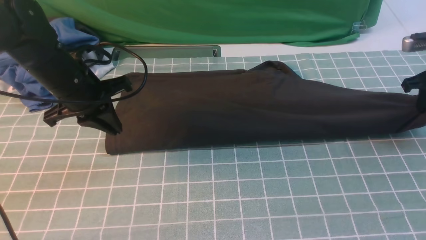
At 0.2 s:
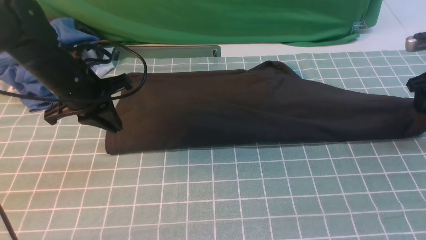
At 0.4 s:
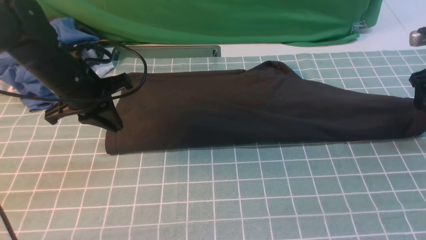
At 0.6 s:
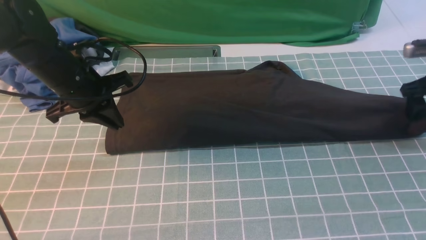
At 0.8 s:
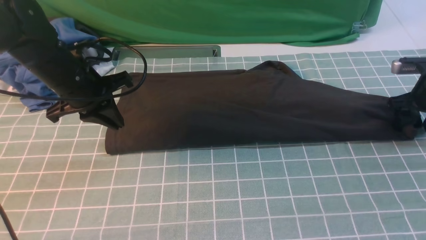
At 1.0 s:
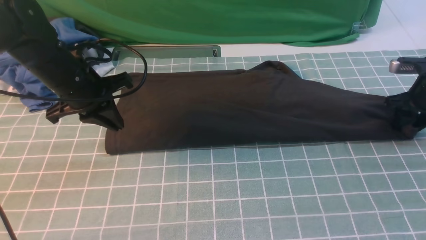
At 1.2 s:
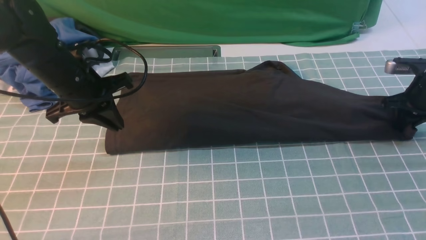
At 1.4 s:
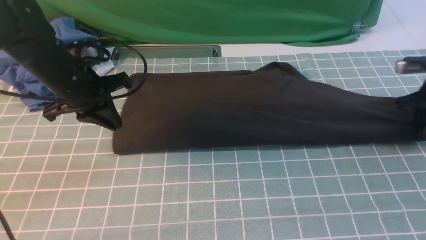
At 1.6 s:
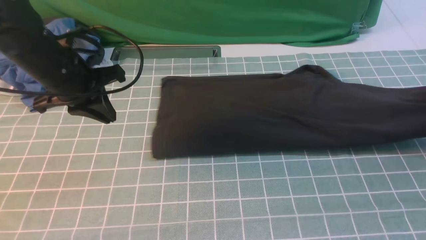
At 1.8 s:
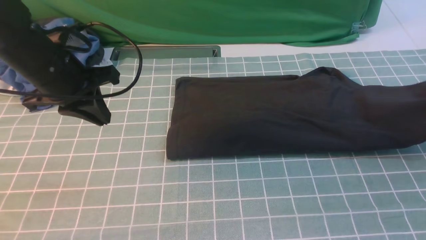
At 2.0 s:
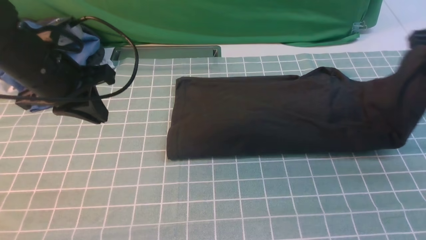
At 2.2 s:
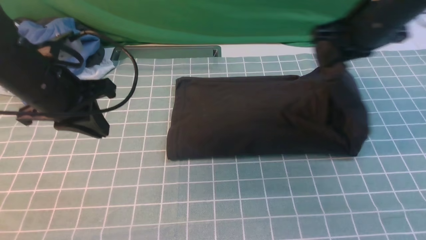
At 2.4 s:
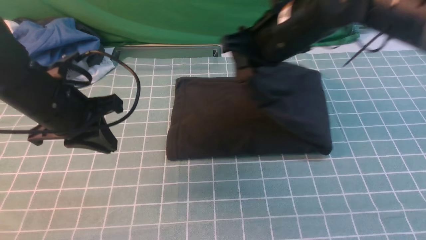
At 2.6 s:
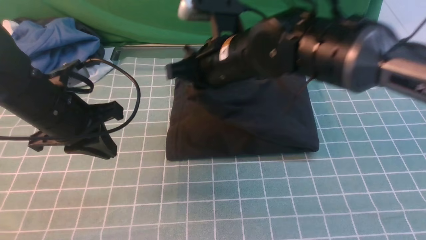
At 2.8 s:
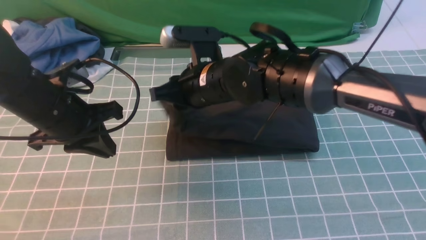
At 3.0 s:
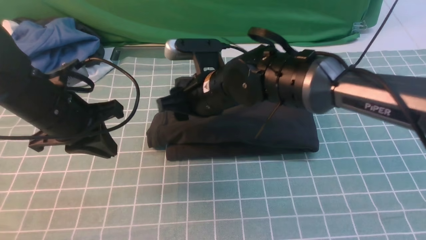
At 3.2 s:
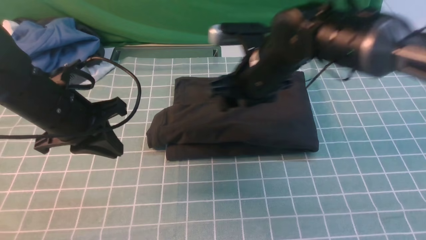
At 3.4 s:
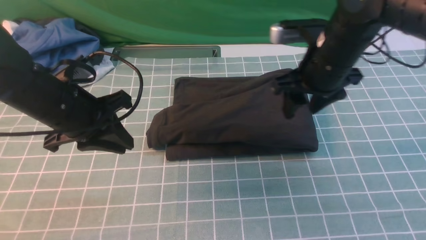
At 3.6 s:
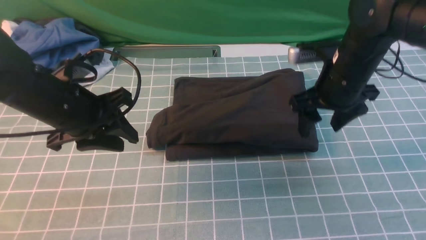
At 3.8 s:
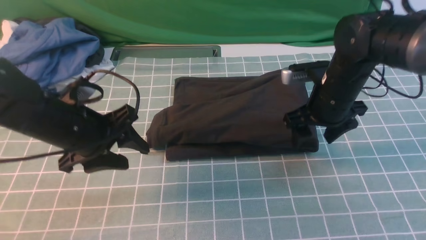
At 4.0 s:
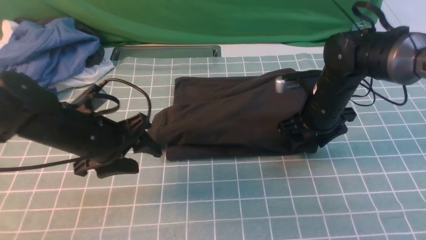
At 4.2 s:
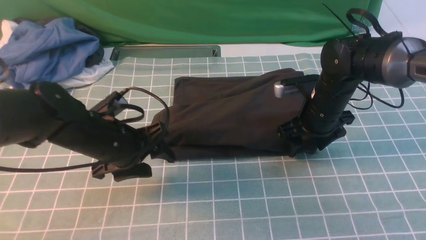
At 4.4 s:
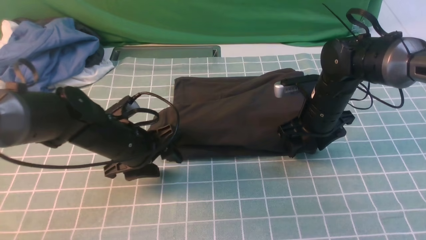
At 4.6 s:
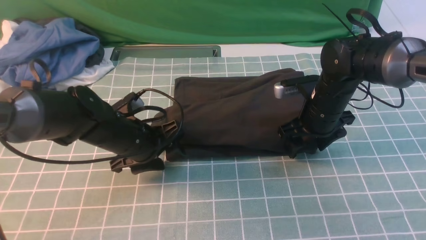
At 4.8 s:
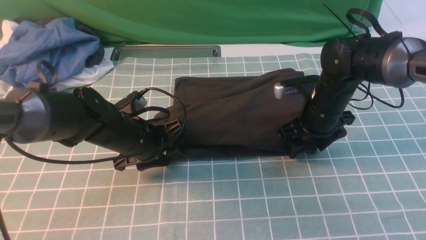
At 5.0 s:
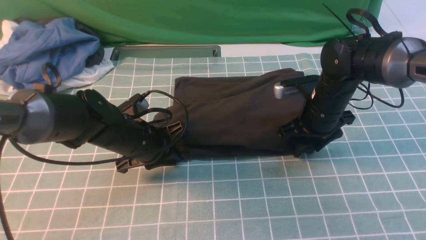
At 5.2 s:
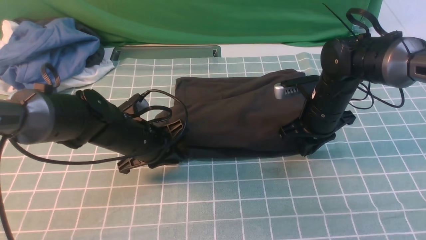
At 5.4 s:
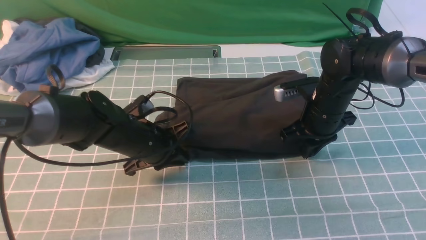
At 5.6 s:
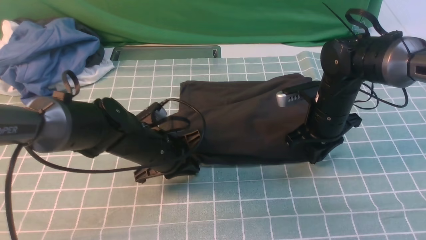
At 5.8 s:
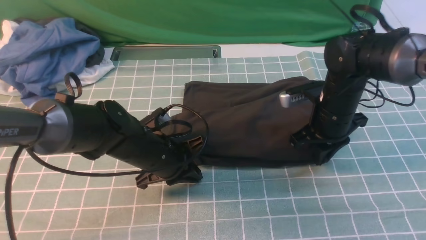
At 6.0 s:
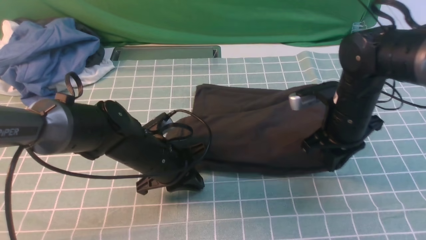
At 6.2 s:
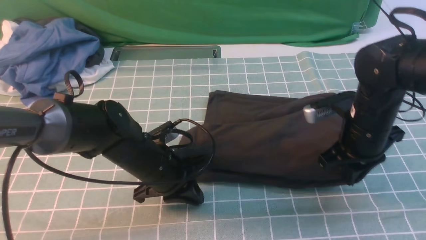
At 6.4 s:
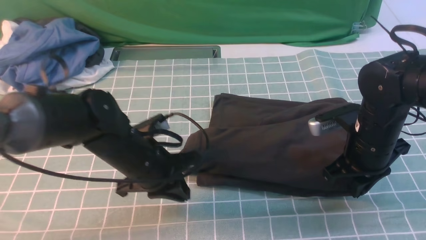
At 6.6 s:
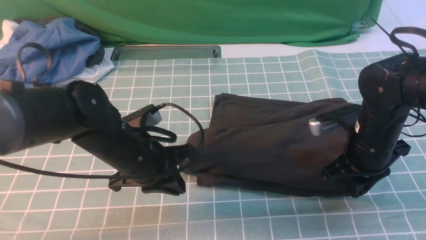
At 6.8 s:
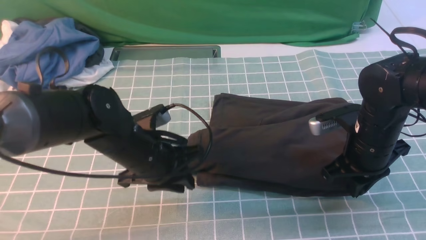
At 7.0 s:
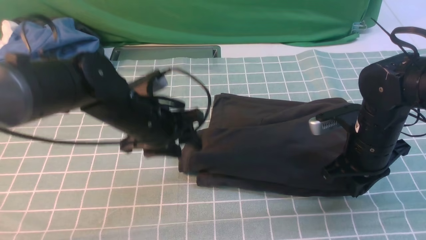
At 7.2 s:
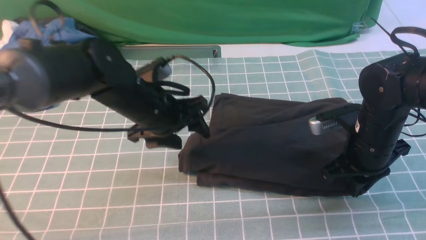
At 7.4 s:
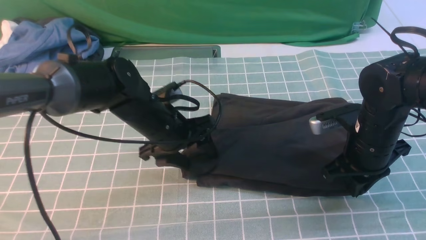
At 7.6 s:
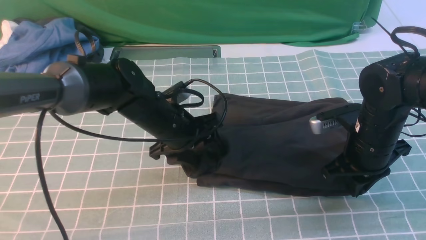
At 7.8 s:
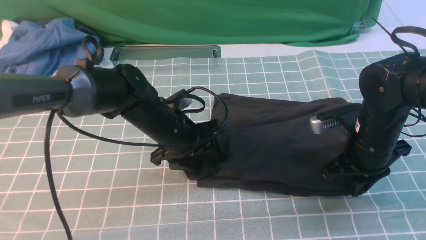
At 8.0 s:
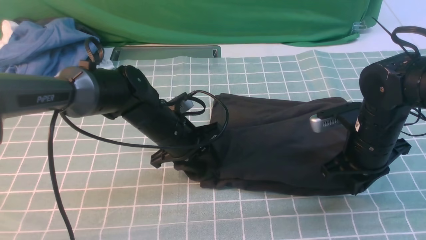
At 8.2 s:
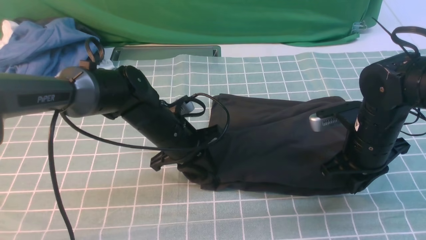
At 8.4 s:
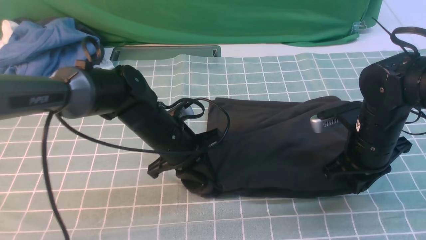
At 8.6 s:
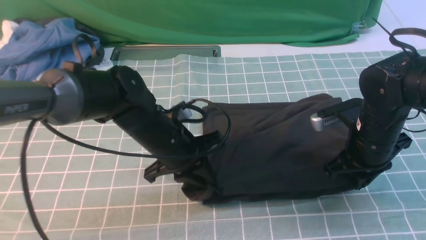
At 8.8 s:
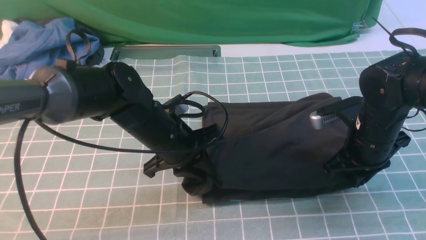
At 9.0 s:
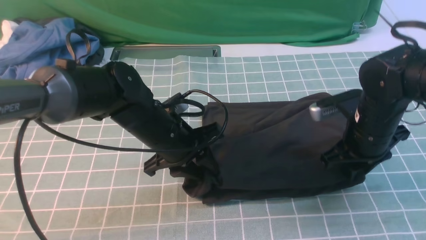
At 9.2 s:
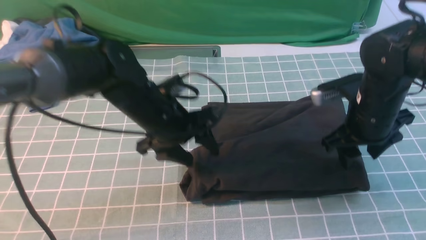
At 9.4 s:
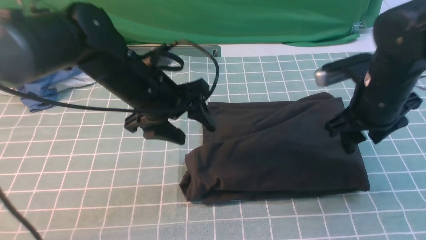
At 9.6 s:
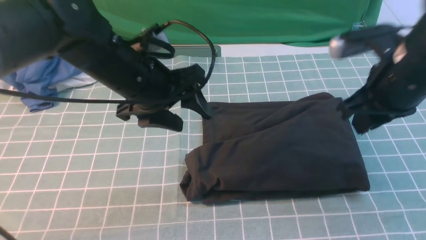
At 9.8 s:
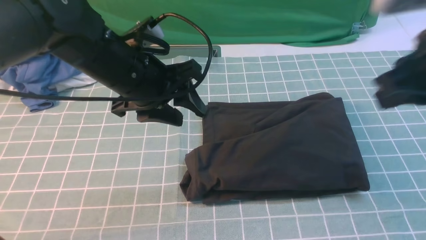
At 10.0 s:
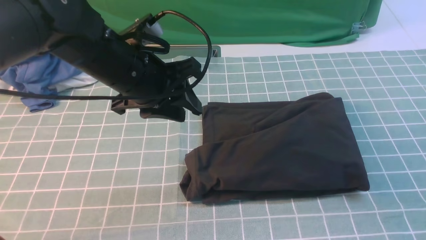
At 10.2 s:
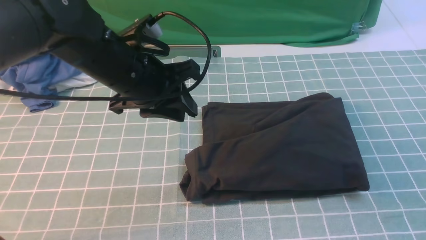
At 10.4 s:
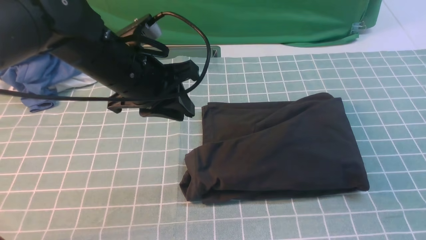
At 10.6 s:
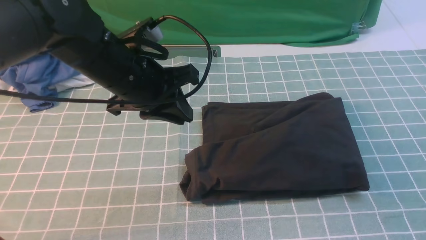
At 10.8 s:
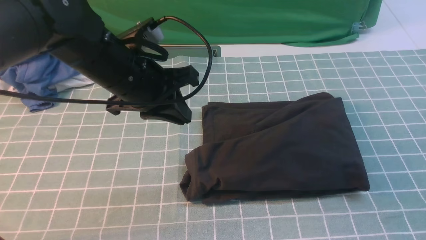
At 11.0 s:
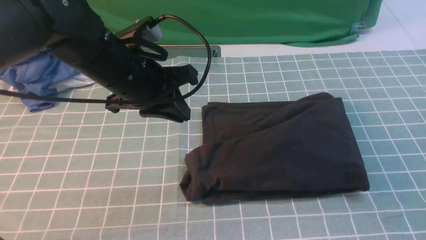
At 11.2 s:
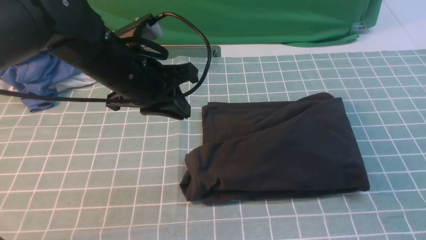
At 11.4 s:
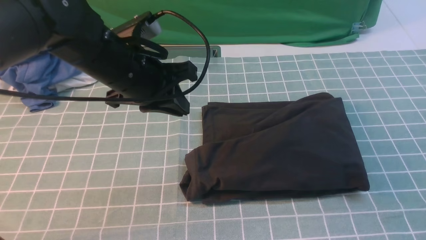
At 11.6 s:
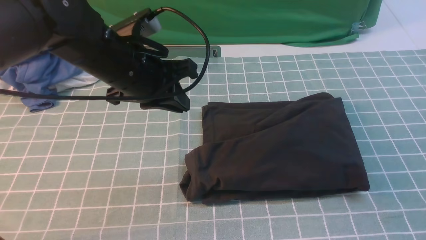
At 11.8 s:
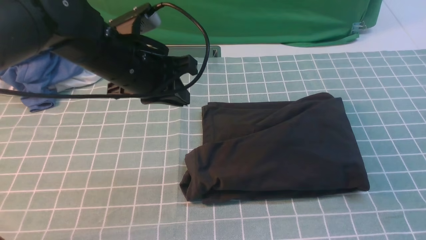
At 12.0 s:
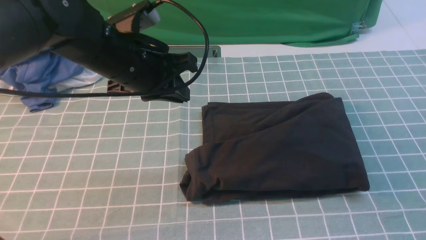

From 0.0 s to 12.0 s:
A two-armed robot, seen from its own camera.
Step, from 1.4 s to 3.4 s: use the right arm to drag the right edge of the fabric to the left and folds it over the left edge.
From 0.0 s to 1.6 s: The right gripper travels downward and back again, some 5 cm each way, and closes up.
From 1.6 s to 3.0 s: The right gripper is displaced to the left by about 40 cm, and opens. The left gripper is displaced backward by approximately 5 cm.
From 3.0 s to 4.4 s: The left gripper travels downward and to the right by approximately 10 cm, and opens up; the right gripper travels to the right and downward by some 15 cm.
From 4.4 s to 6.0 s: The left gripper is displaced to the right by about 5 cm, and closes up; the right gripper shifts by approximately 5 cm, and closes its fingers.
From 6.0 s to 7.6 s: The left gripper changes place by some 5 cm, and opens up.
From 7.6 s to 9.0 s: The left gripper closes up.
From 9.0 s to 10.4 s: The right gripper travels backward and upward by some 35 cm, and closes its fingers. The left gripper heads upward, covering roughly 10 cm, and opens and closes again.
From 10.4 s to 12.0 s: The right gripper is displaced downward by about 15 cm.

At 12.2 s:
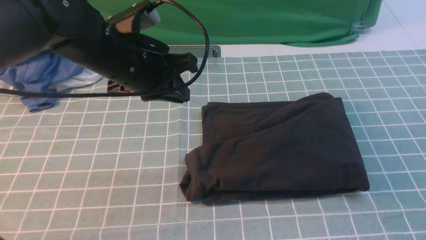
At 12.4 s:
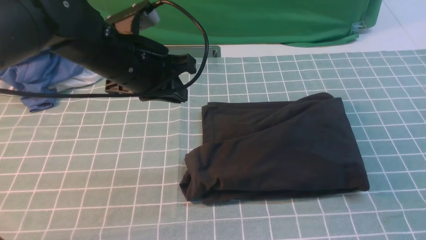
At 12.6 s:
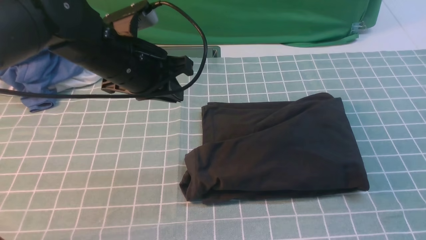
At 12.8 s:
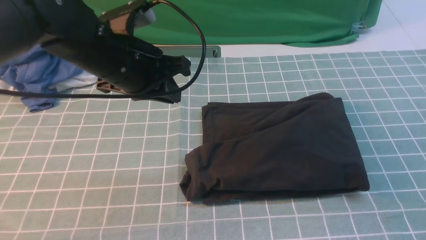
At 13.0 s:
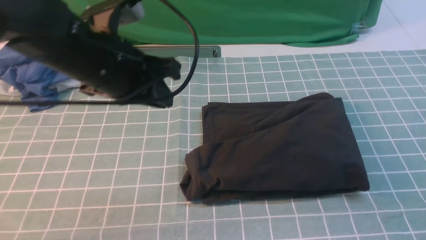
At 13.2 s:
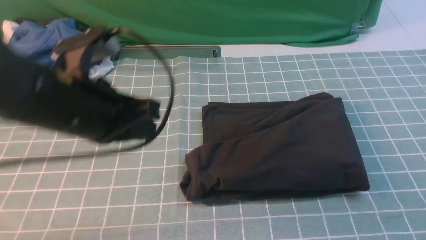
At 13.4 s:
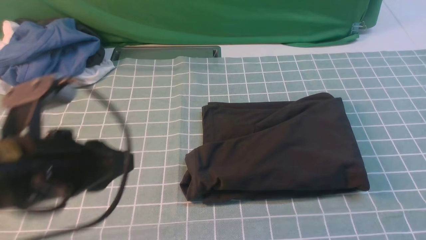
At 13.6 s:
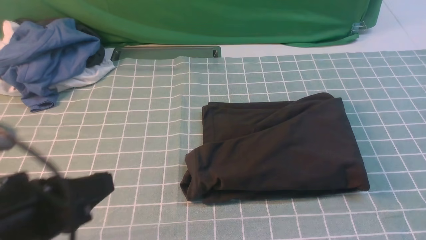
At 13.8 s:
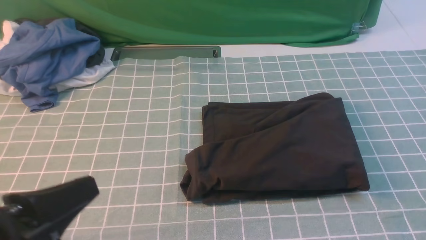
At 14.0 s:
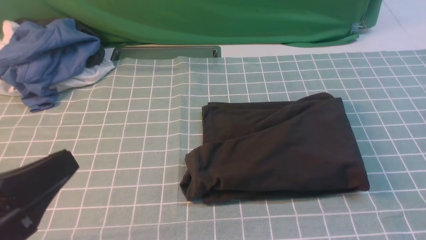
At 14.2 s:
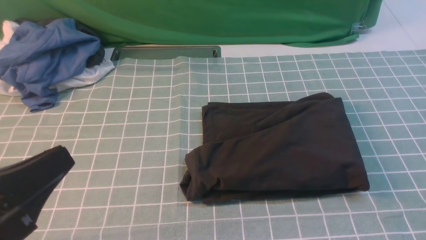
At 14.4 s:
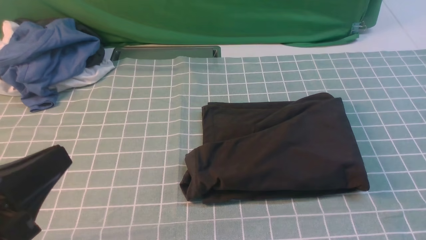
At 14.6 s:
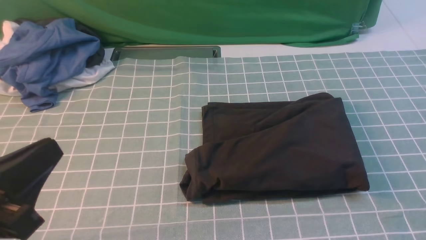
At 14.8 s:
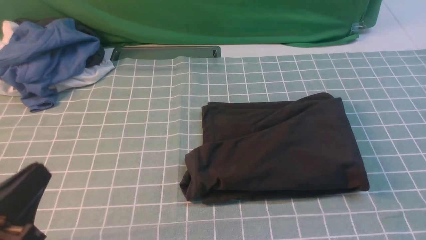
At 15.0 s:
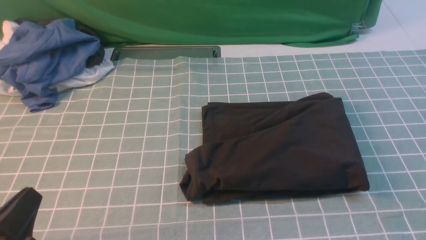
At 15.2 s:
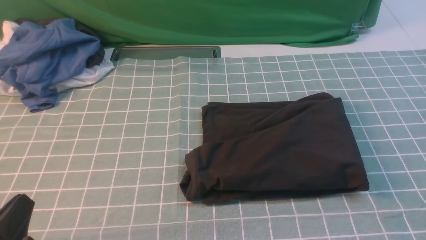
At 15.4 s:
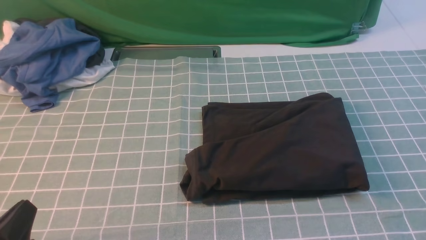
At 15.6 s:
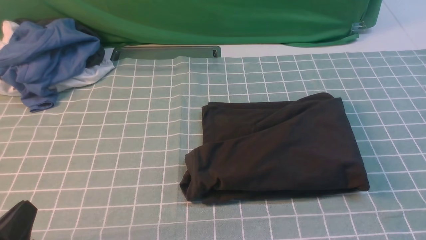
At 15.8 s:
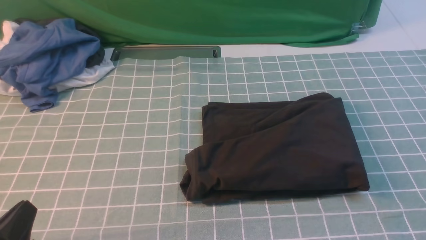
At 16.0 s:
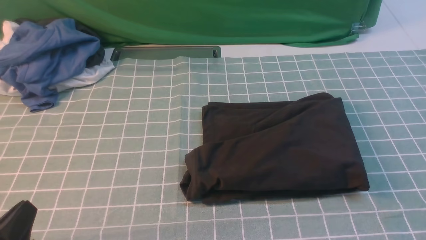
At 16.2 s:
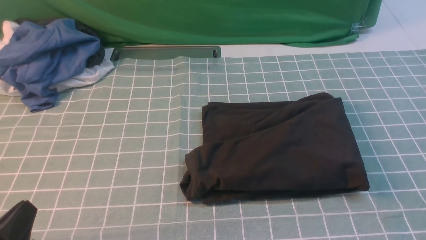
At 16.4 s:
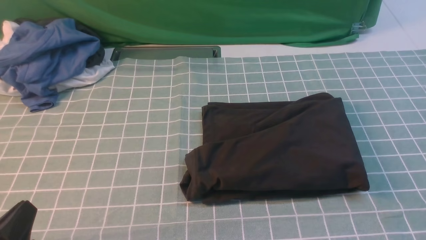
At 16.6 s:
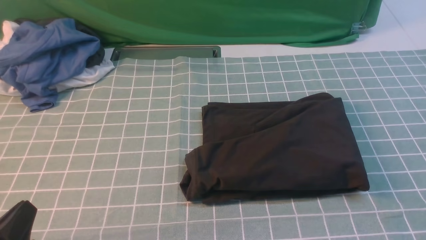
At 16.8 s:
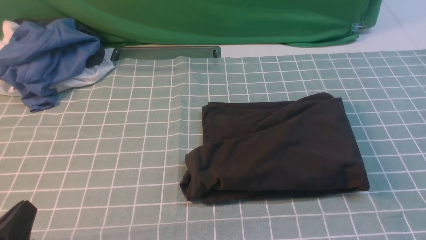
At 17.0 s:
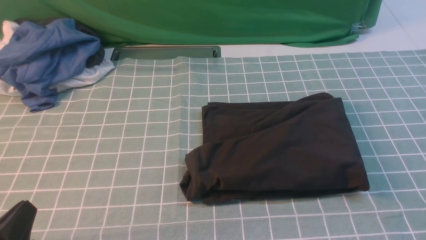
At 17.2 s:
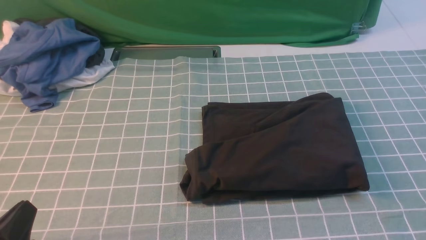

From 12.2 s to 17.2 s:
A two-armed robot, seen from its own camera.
From 12.2 s to 13.8 s: The left gripper moves backward, about 25 cm.
From 13.8 s to 15.6 s: The left gripper heads downward, covering approximately 10 cm.
From 15.6 s to 17.2 s: Both grippers stay about where they are.
